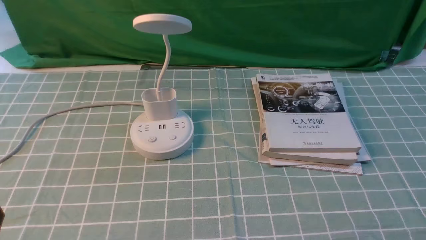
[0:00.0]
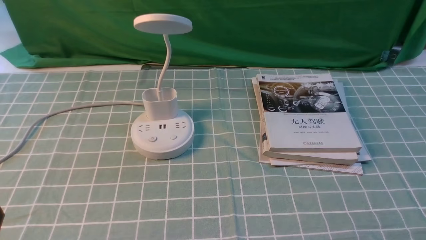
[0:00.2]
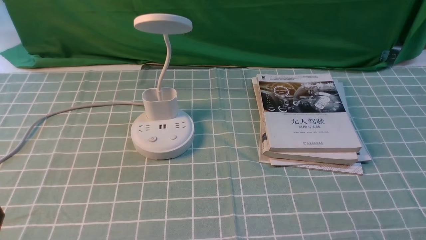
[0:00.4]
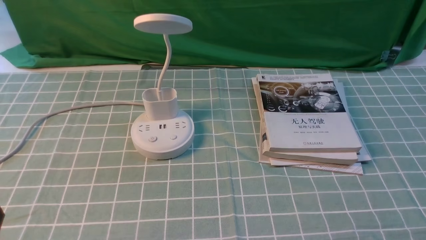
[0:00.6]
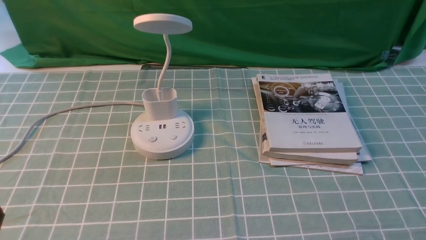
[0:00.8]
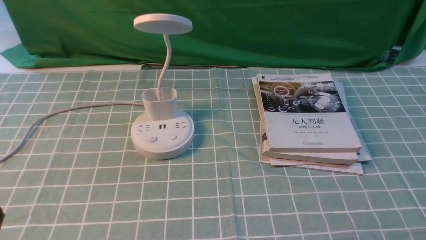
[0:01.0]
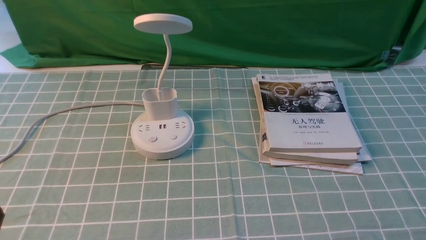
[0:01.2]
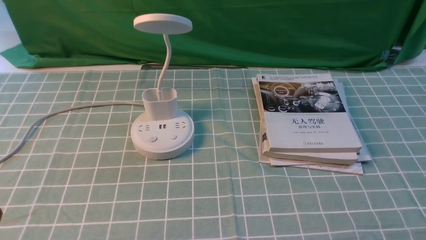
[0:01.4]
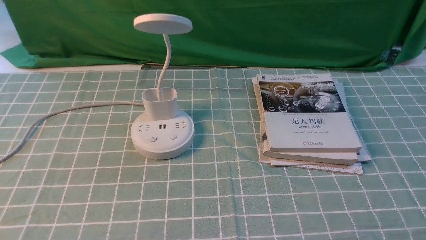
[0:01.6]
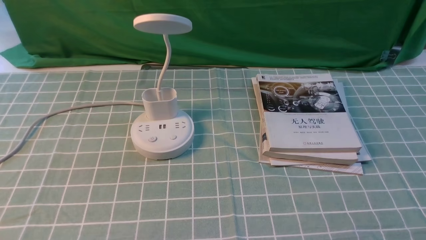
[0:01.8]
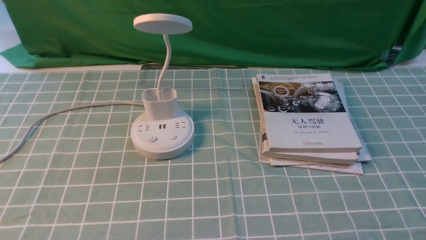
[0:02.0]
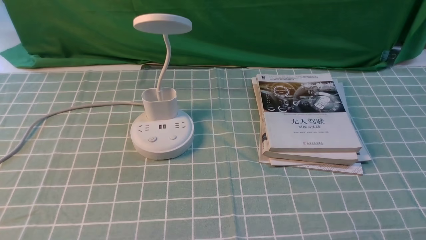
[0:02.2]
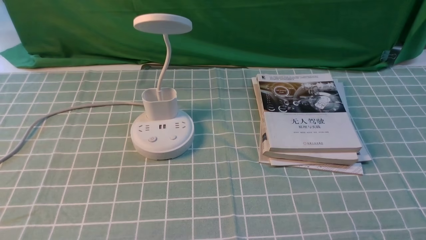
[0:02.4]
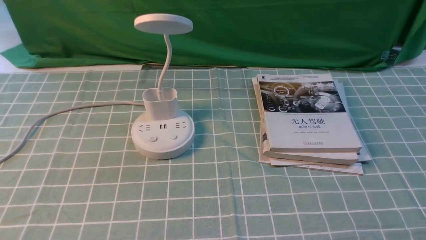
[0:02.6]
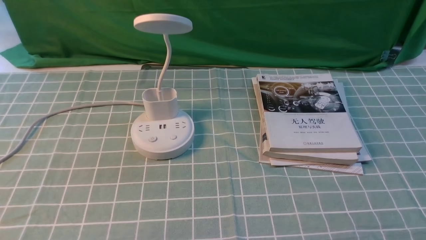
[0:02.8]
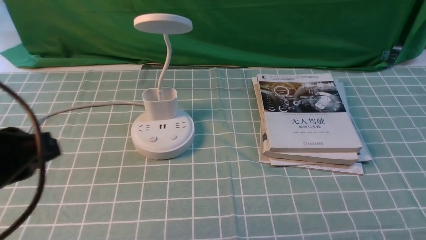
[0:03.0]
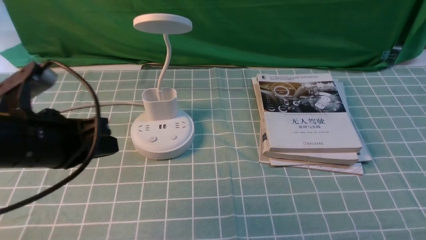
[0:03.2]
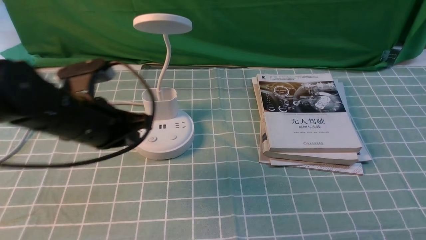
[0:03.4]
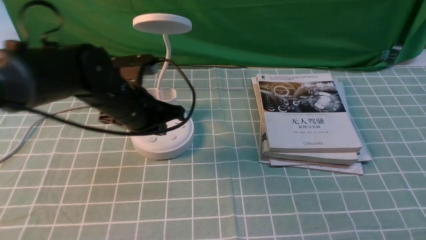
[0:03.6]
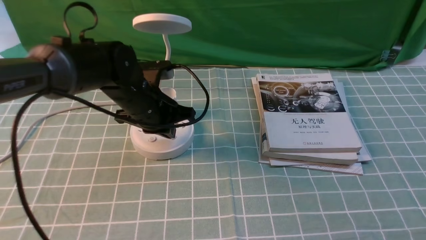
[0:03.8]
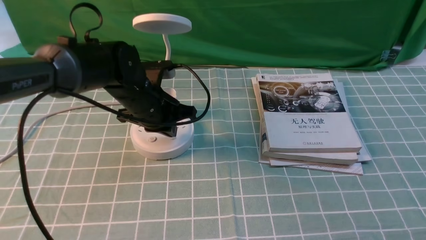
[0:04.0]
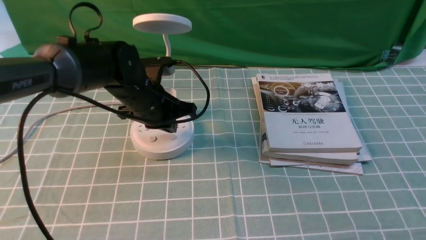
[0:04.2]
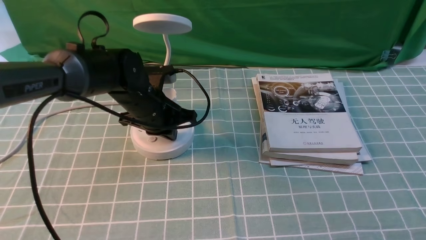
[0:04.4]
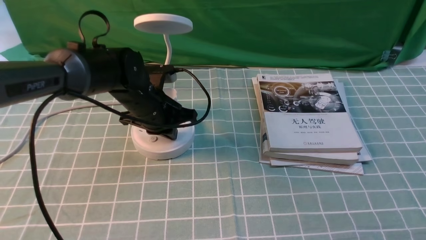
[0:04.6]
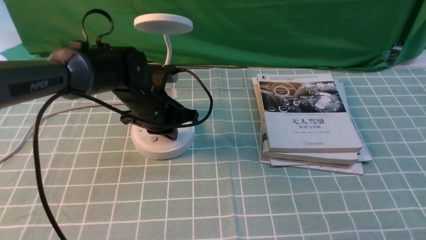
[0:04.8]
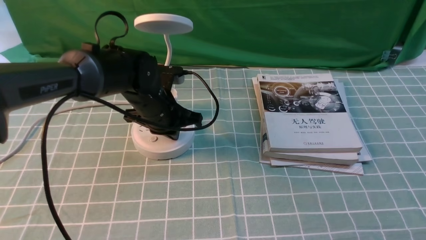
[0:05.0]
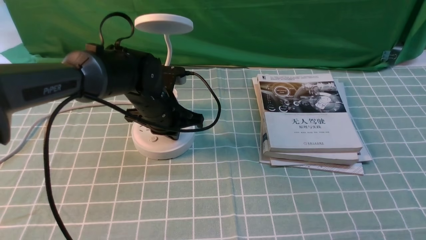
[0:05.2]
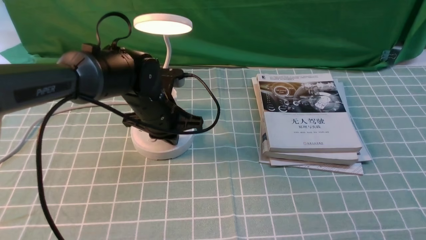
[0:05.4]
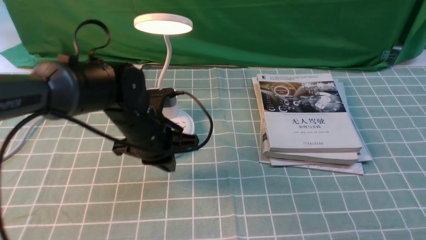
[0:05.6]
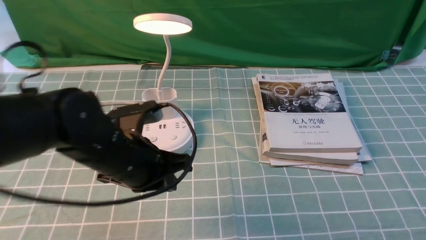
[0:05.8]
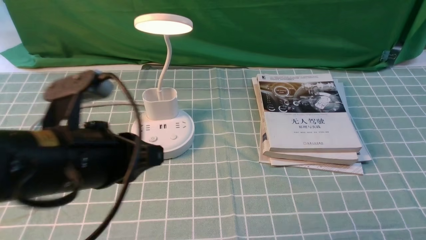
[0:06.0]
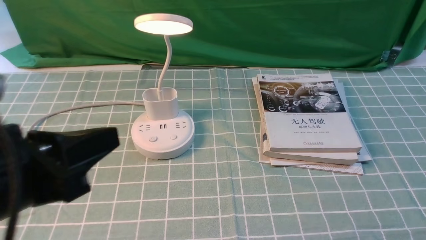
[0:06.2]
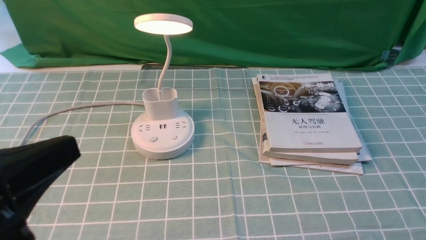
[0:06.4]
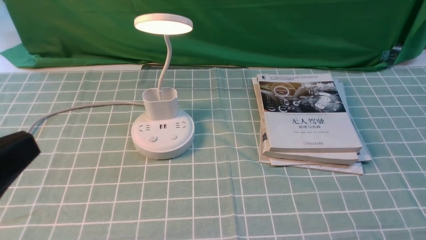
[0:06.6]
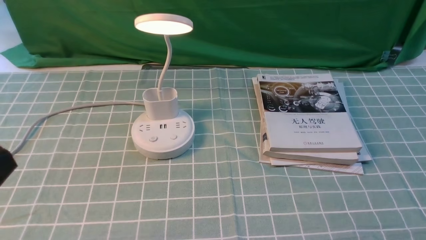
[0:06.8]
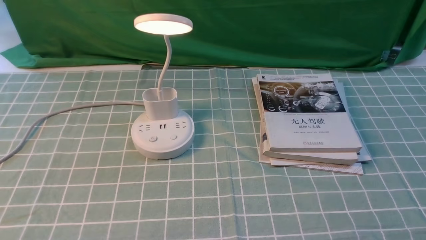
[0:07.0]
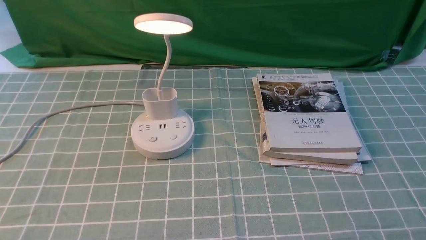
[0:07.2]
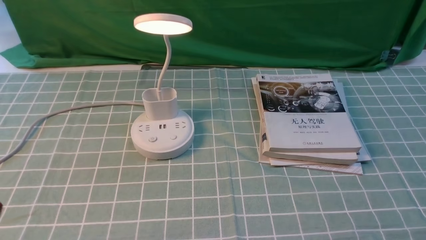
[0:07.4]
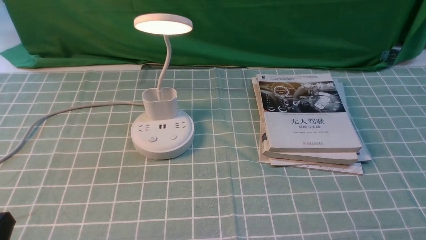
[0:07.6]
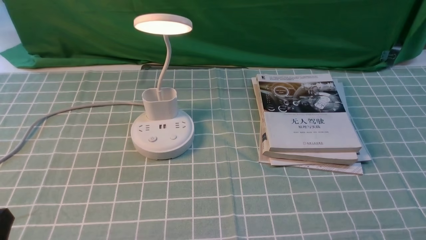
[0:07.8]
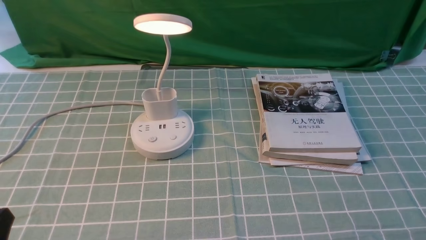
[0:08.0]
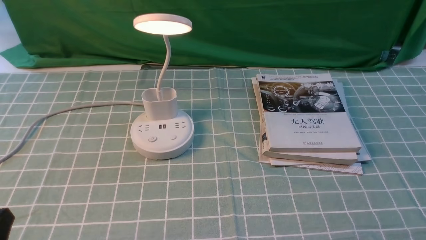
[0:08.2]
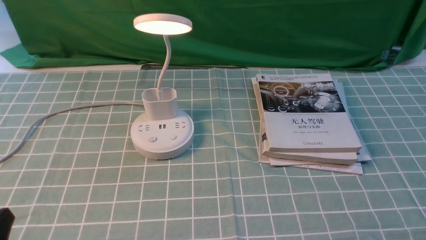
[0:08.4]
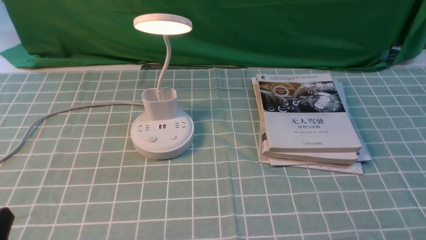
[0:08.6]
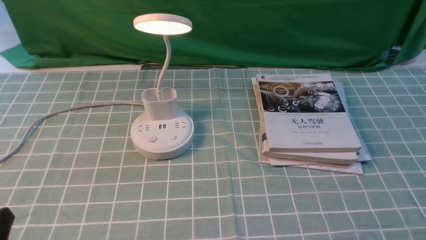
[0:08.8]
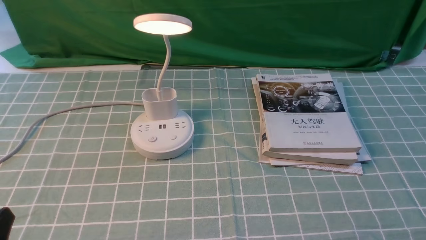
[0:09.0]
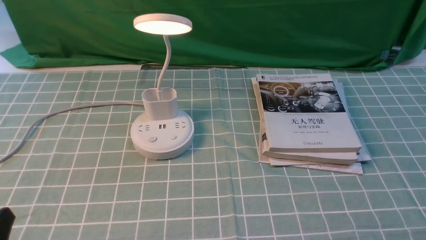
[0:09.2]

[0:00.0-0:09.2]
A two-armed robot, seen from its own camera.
Step, 0:00.0 to 0:05.6: use the left arm to press the button switch on the lamp holder.
0:01.6 to 0:03.0: The left gripper heads upward and forward, covering approximately 15 cm.
0:03.0 to 0:04.6: The left gripper travels forward, downward and to the right by roughly 30 cm.
0:04.6 to 0:06.2: The left gripper is displaced backward and upward by some 30 cm.
0:06.2 to 0:07.6: The left gripper heads downward, to the left and backward, covering roughly 15 cm.

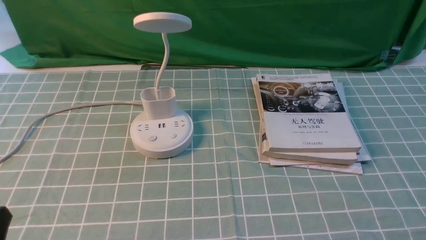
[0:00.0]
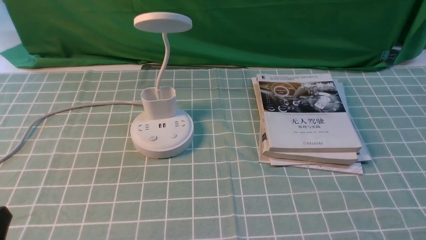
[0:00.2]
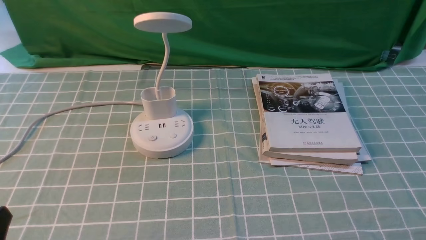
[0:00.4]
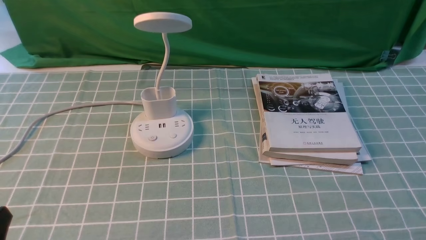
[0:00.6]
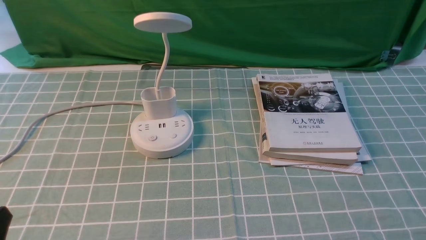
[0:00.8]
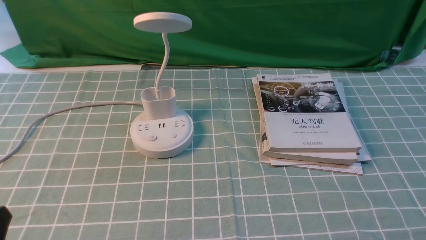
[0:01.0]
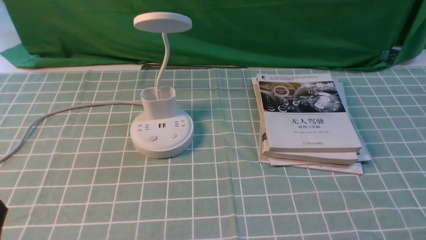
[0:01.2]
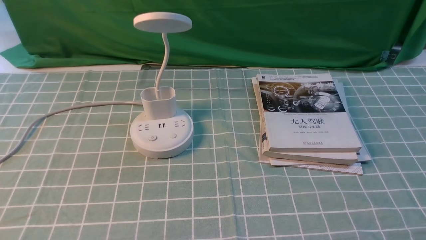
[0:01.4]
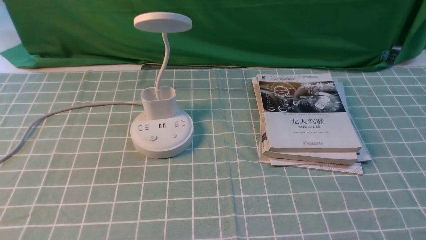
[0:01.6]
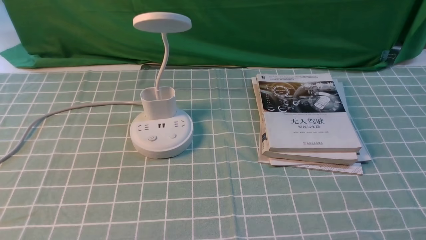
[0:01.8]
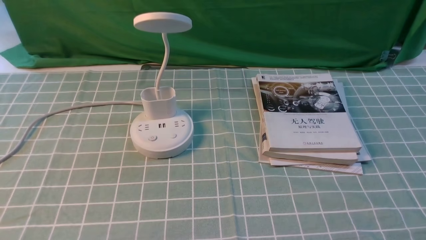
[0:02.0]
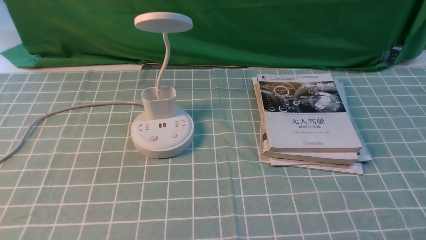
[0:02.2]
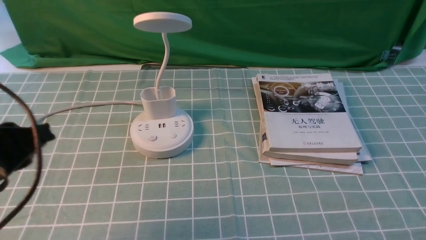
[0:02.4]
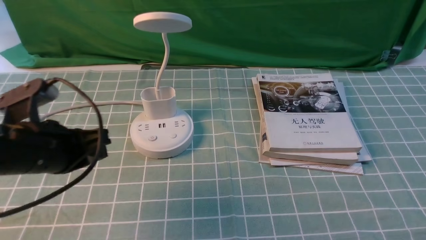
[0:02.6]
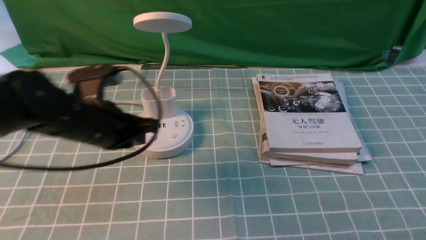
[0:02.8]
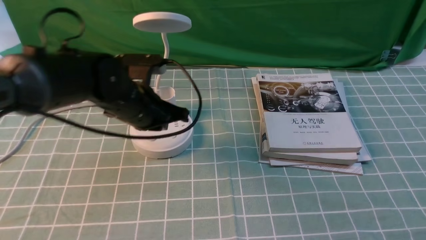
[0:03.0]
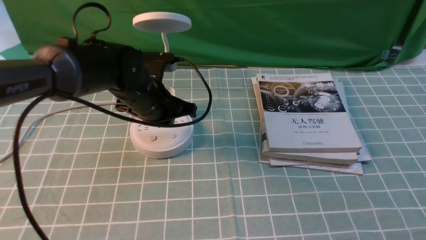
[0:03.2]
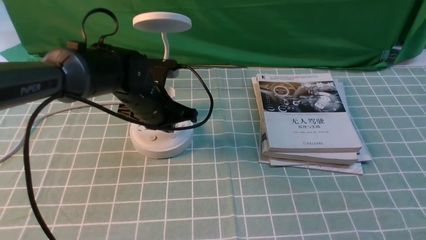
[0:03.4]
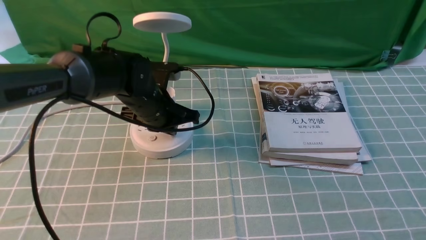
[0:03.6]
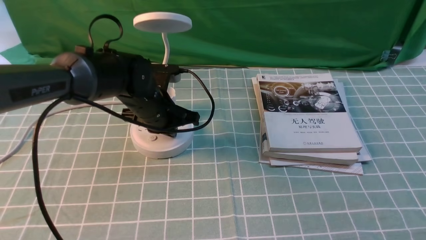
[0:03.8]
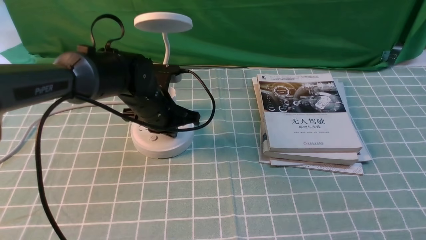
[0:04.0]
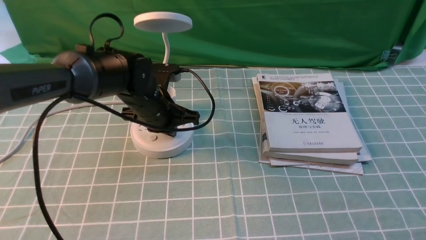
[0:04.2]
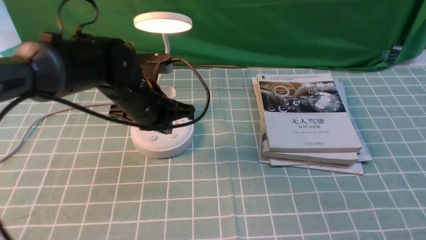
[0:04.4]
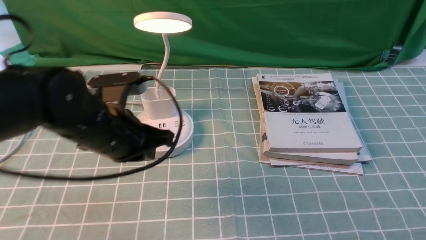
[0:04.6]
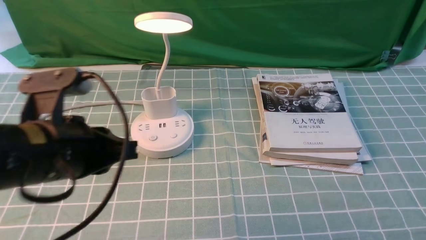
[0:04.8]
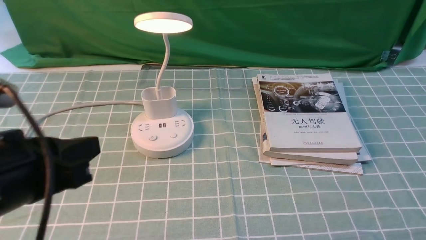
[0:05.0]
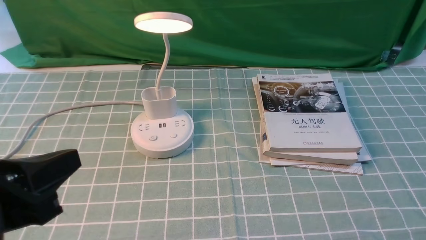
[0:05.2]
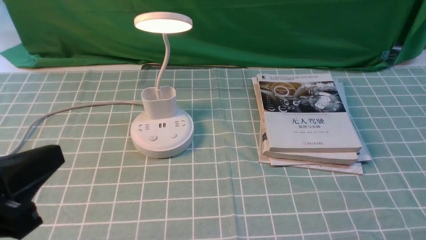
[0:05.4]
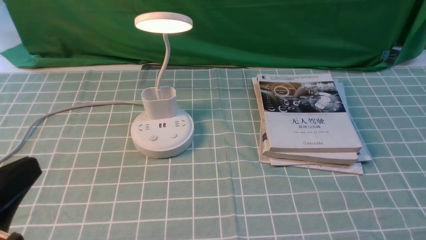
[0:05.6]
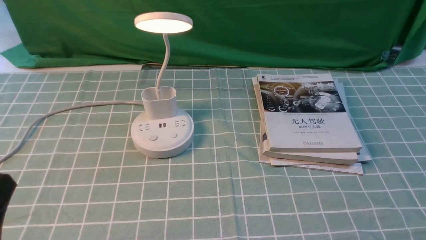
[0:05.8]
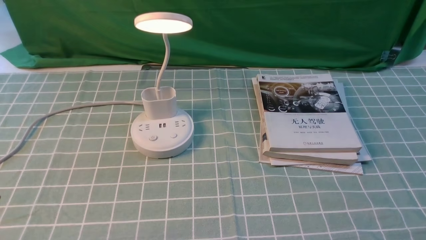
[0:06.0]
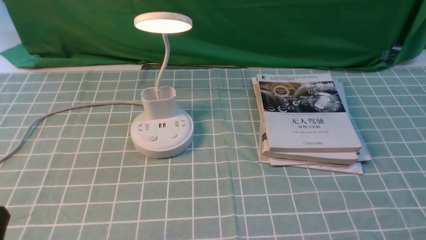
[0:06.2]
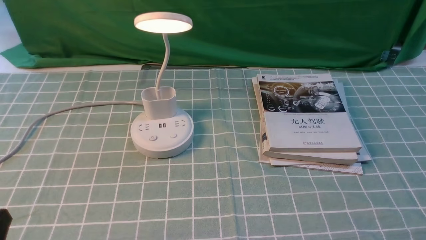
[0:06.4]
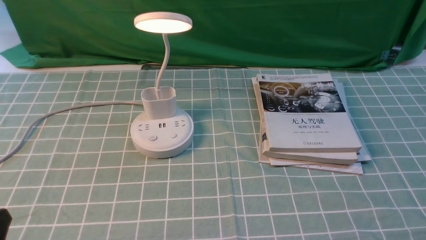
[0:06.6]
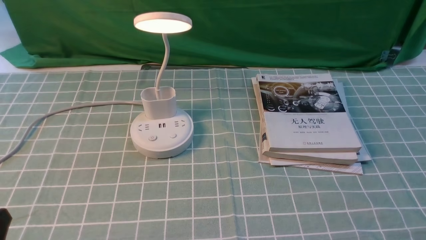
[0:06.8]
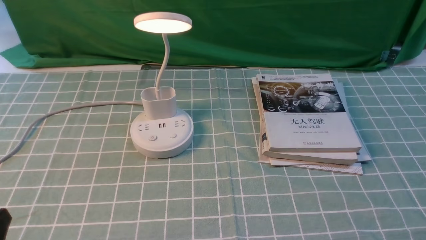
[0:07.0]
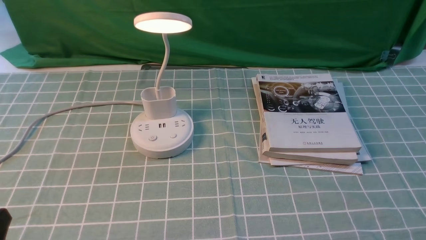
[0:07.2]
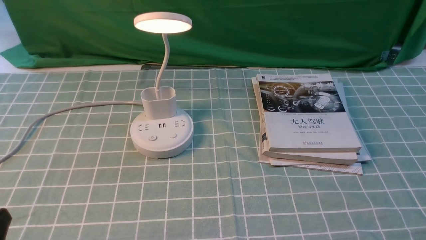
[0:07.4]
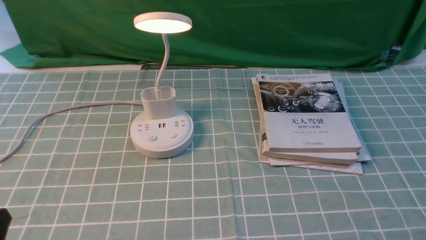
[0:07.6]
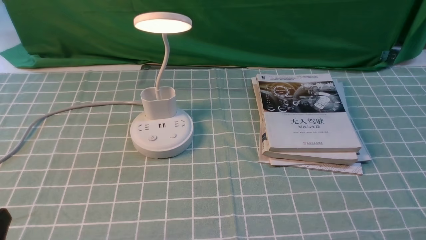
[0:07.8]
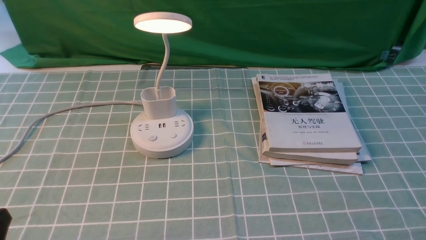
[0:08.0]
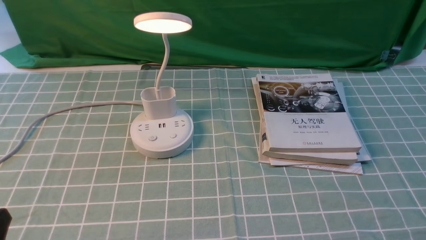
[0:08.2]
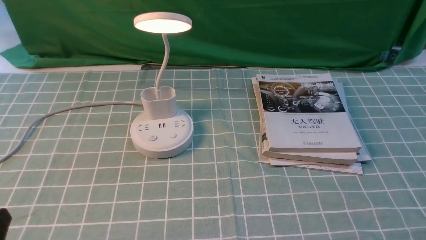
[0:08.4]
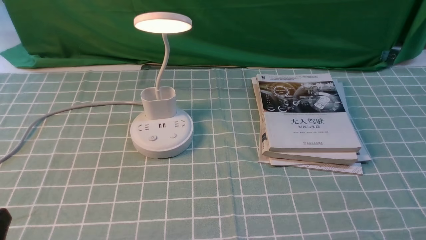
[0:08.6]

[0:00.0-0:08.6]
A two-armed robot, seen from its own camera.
Step, 0:00.0 to 0:04.4: use the left arm to press the button switch on the lamp holder.
0:01.4 to 0:02.8: The left gripper travels forward and to the right by some 25 cm, and closes.
0:04.4 to 0:05.8: The left gripper moves backward and to the left, some 30 cm.
0:07.2 to 0:08.6: The two grippers keep their place.
